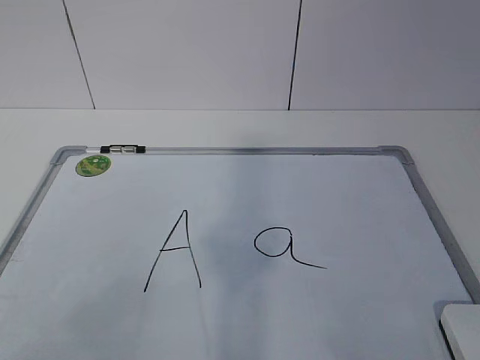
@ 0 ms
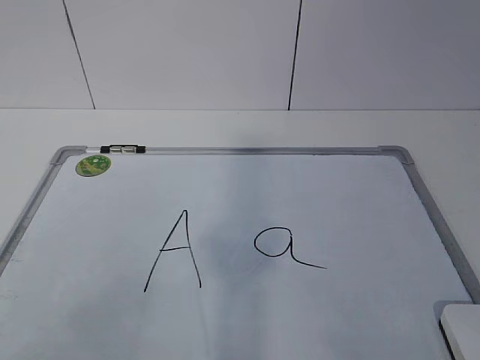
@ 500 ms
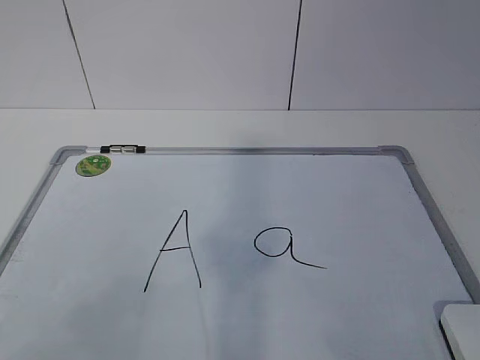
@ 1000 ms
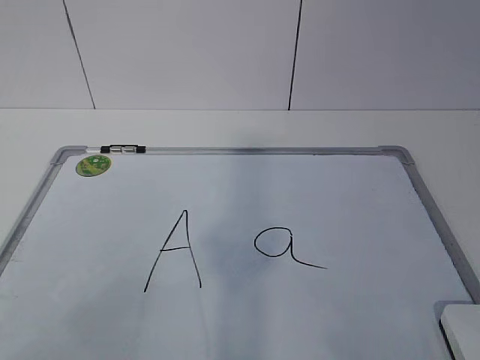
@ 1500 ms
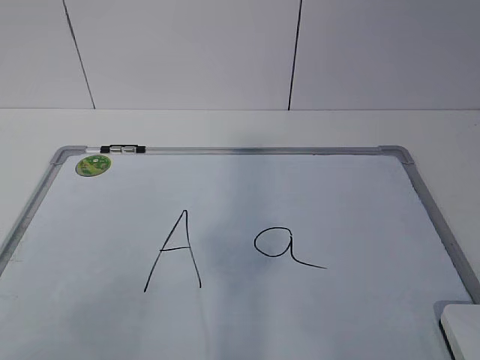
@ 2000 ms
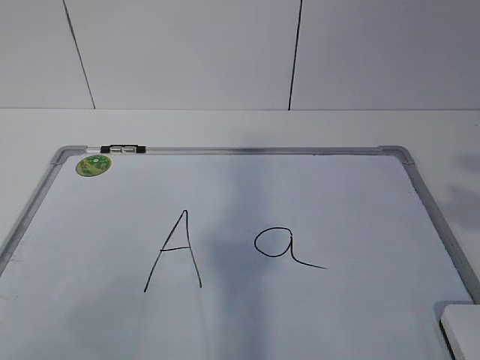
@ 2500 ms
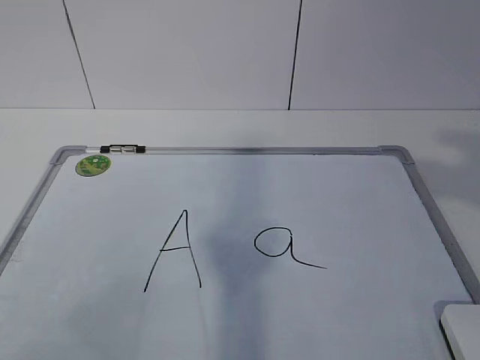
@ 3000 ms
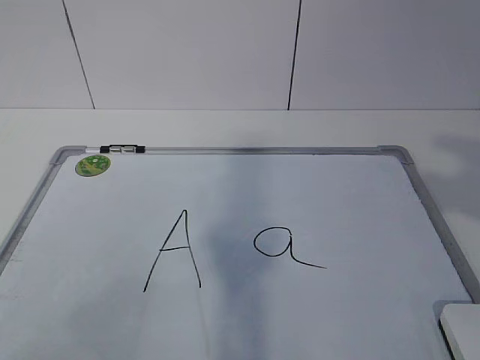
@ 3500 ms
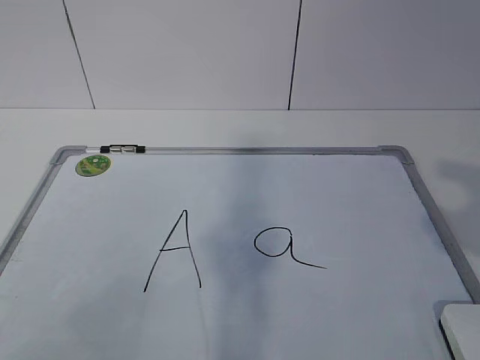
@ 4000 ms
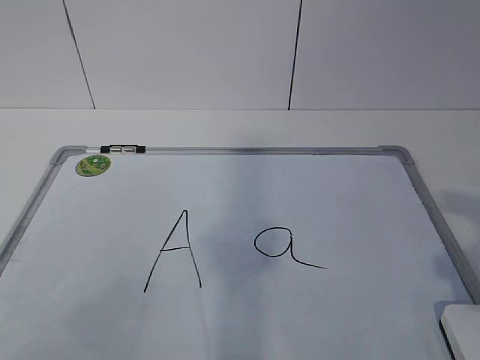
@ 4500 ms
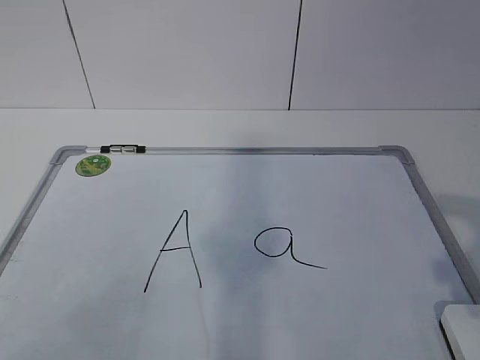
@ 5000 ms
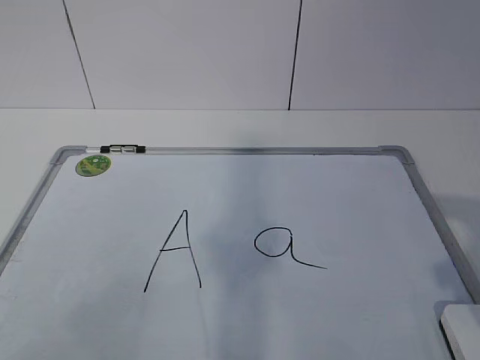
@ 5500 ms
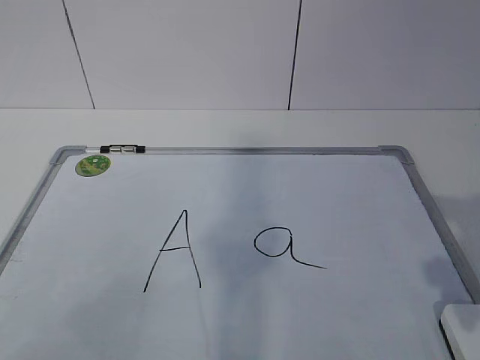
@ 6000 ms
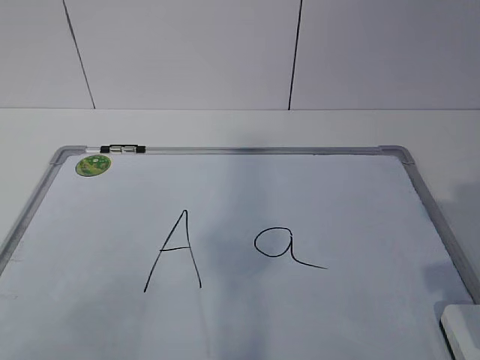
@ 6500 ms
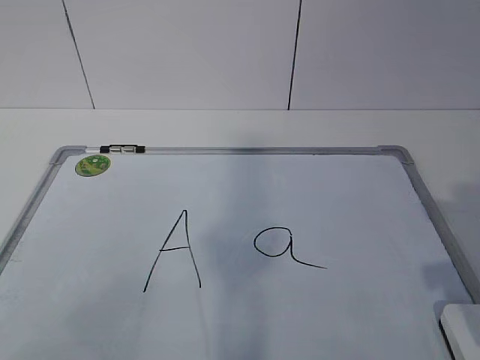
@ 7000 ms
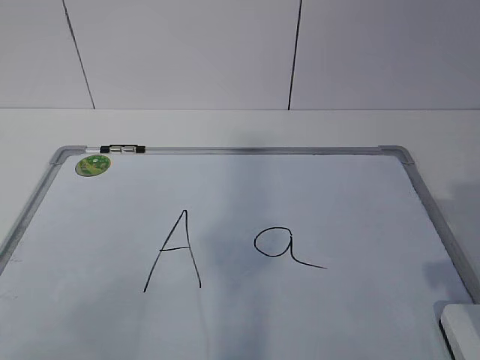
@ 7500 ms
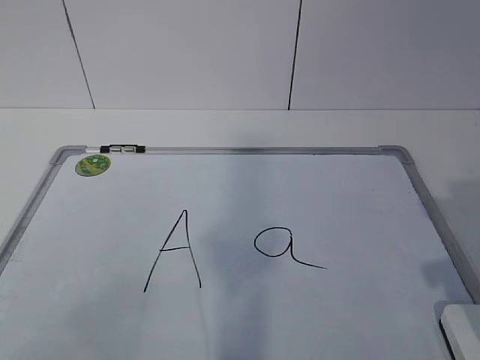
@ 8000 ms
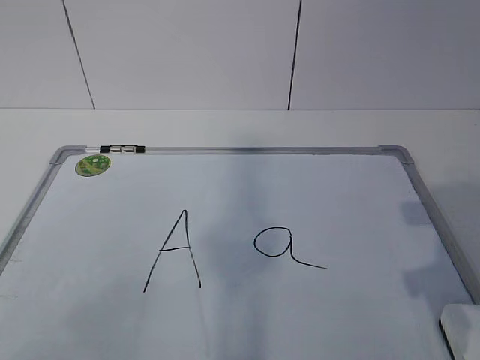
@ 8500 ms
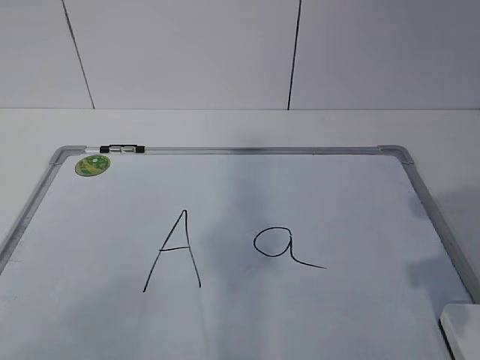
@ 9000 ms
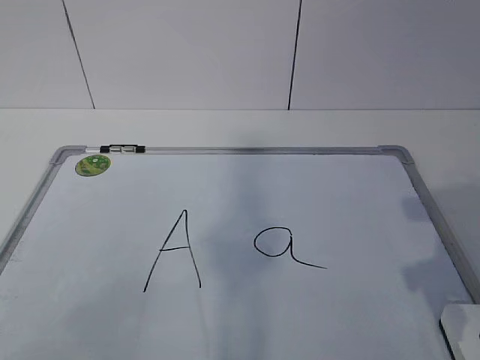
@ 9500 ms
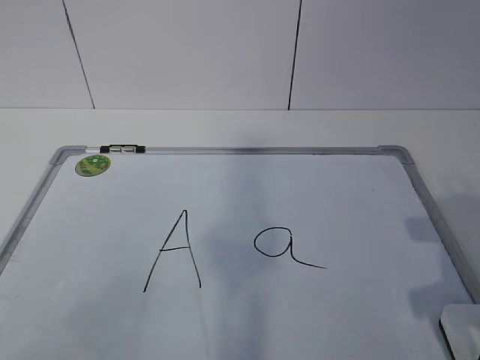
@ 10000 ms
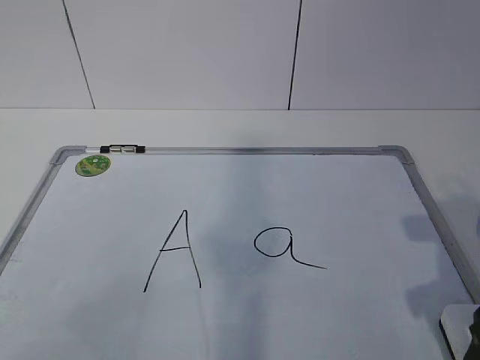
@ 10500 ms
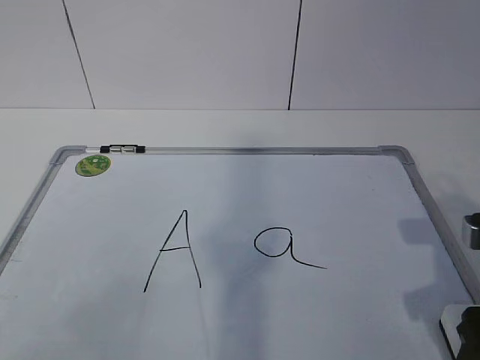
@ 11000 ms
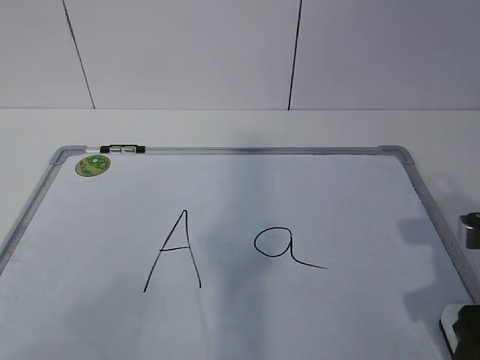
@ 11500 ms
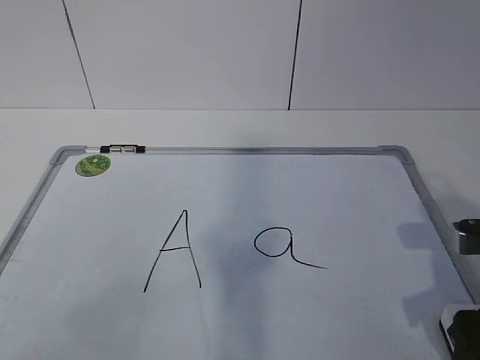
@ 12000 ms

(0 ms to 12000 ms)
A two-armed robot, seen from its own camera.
Task of the whole recording: pick up the eraser on the blackboard and erase the letter "a".
8000 ms - 10000 ms: The grippers make only small movements.
10000 ms - 12000 ms: The grippers make only small movements.

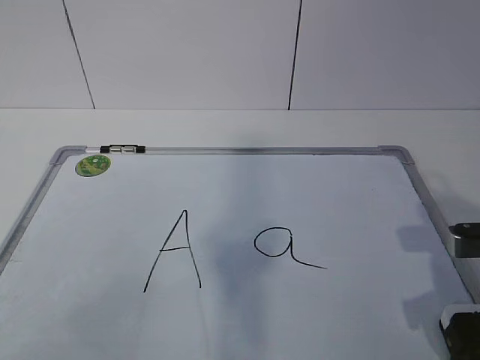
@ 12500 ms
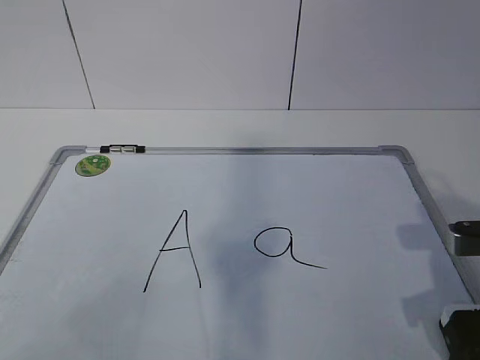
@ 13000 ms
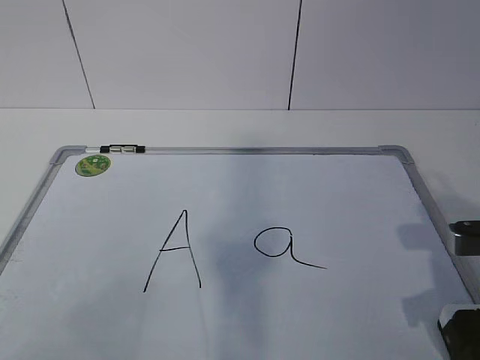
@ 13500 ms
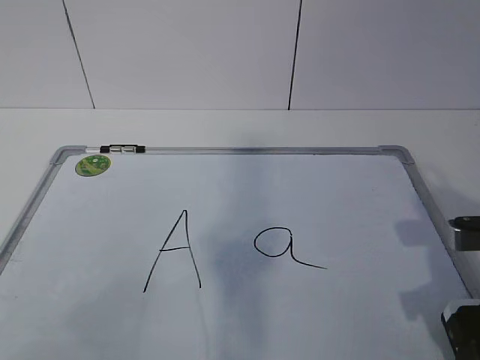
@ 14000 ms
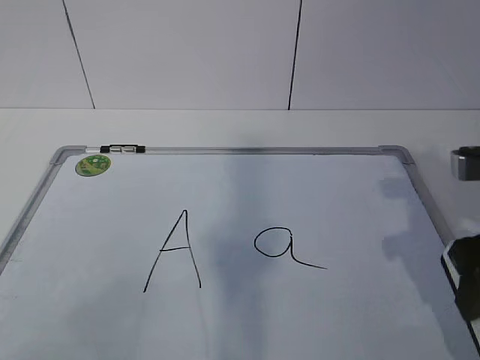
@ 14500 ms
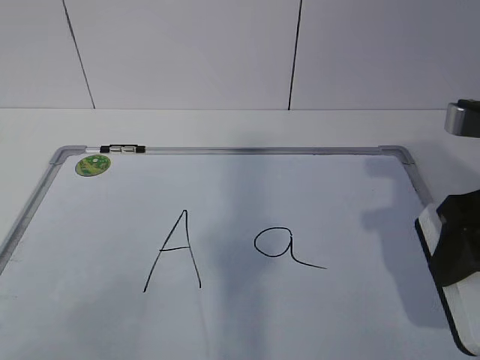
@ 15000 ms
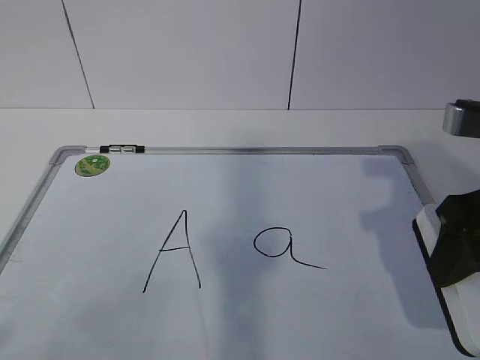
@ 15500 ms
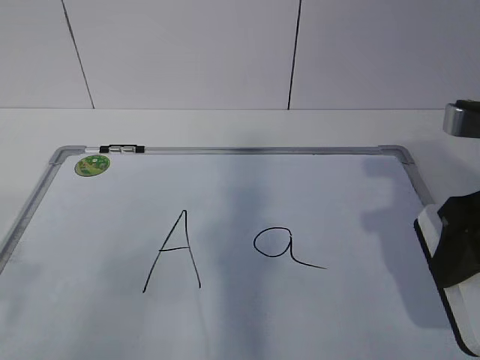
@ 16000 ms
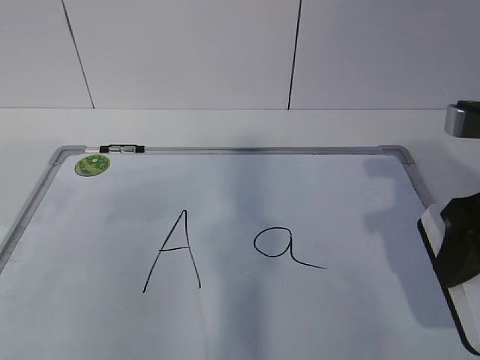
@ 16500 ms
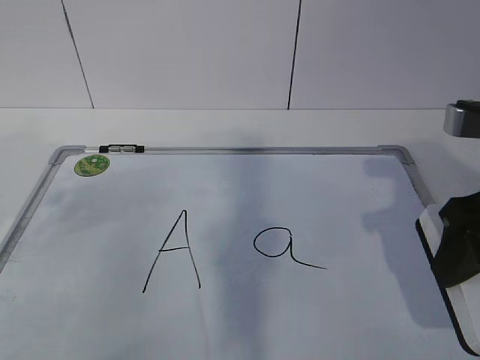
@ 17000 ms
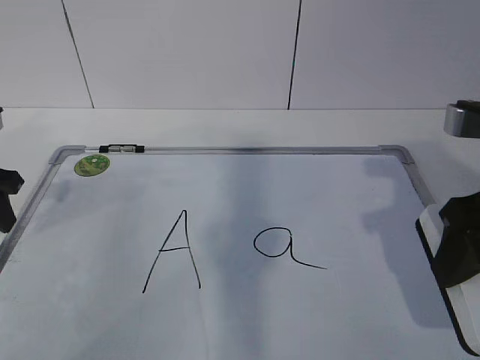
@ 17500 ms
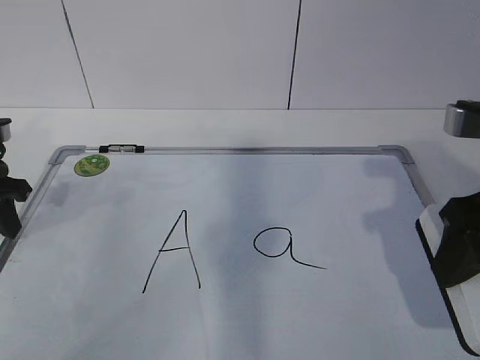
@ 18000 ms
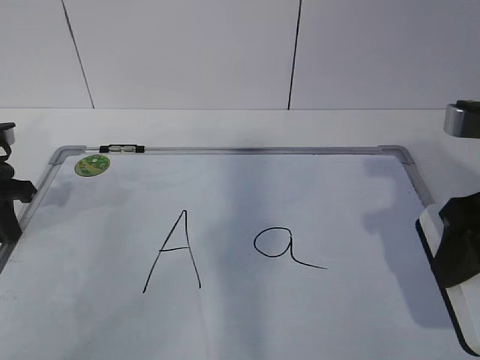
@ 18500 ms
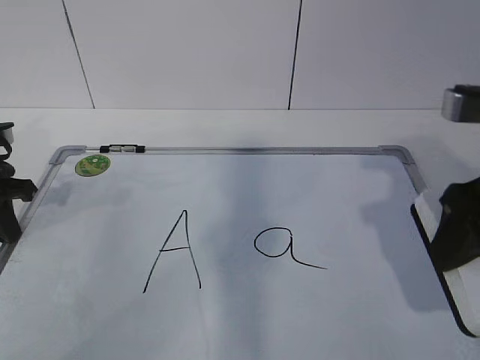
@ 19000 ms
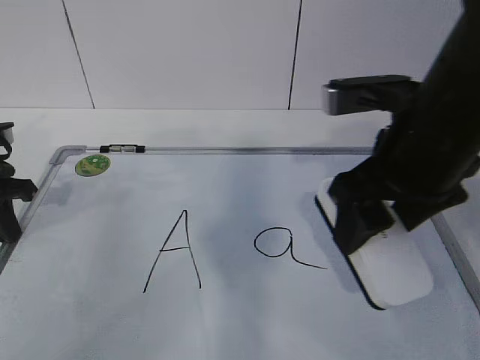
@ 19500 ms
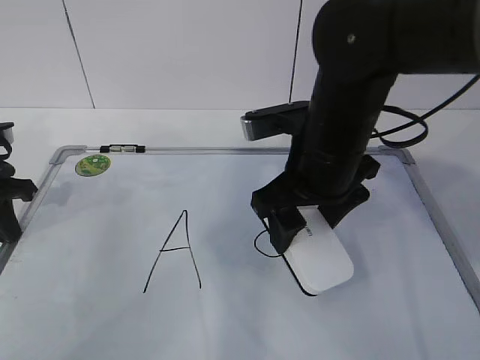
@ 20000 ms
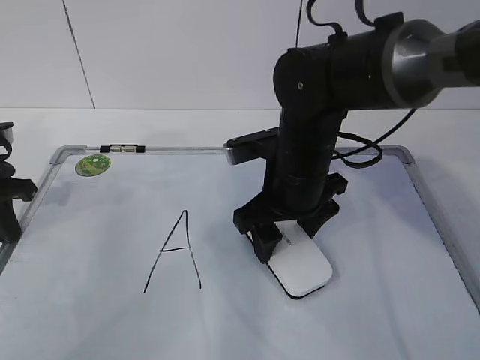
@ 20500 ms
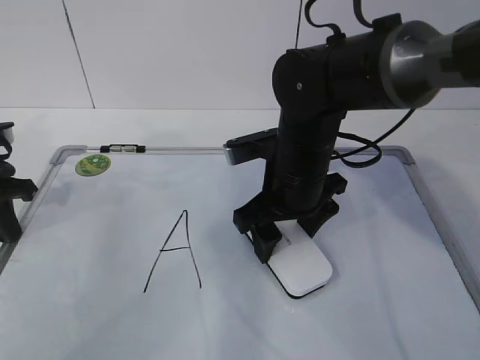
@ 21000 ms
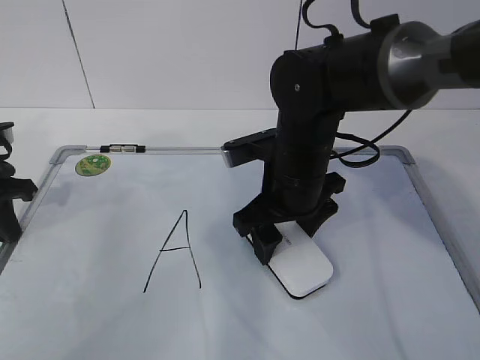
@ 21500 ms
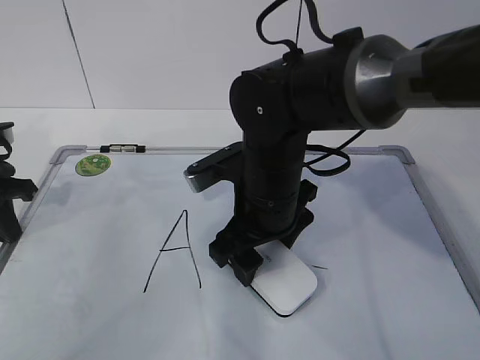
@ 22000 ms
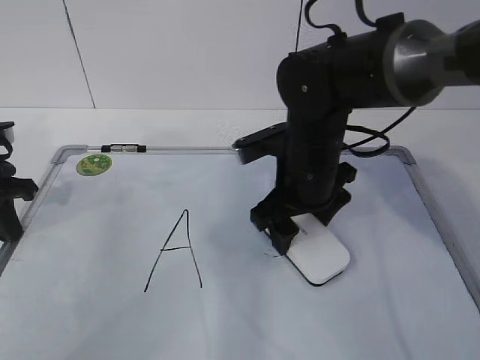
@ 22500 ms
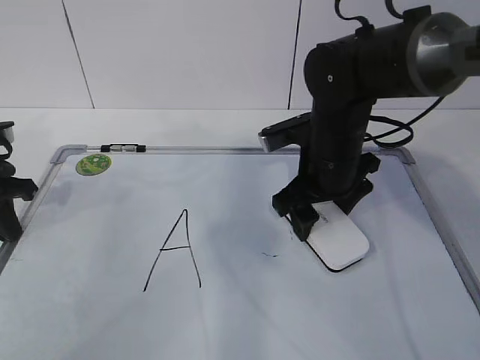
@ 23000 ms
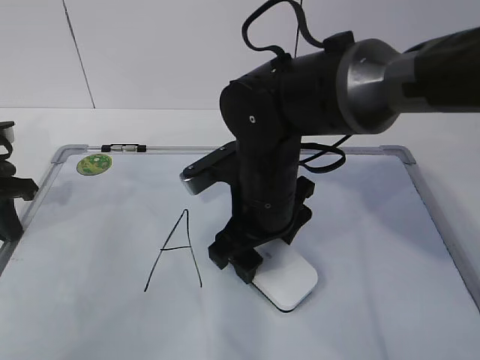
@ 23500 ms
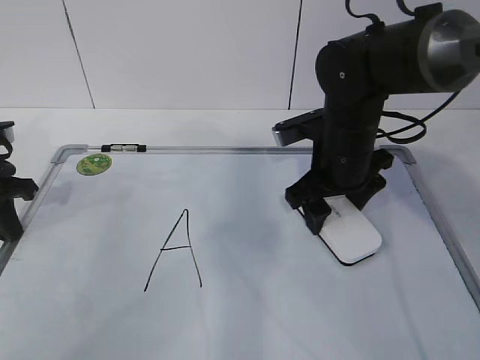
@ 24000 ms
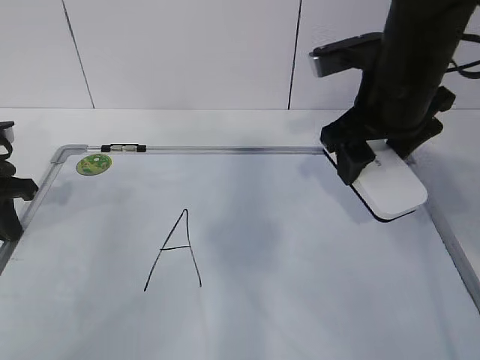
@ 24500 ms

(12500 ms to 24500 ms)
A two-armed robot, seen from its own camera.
Task of the whole recording: pick up the eraser on the blackboard and erase the letter "a".
Step, 16000 ms - 19500 ms: Erase the letter a with your right hand.
Step, 20500 ms - 22000 ms: Put down the eraser with your right hand.
12500 ms - 14500 ms: The right gripper shifts some 5 cm upward.
16500 ms - 18500 ms: The left gripper goes some 20 cm downward and forward, and closes up.
18500 ms - 20500 ms: The right gripper goes some 20 cm to the left, forward and downward.
20500 ms - 22500 ms: The grippers stay close to where they were, moving slightly.
22500 ms - 24500 ms: The right gripper travels upward and to the right by about 10 cm.

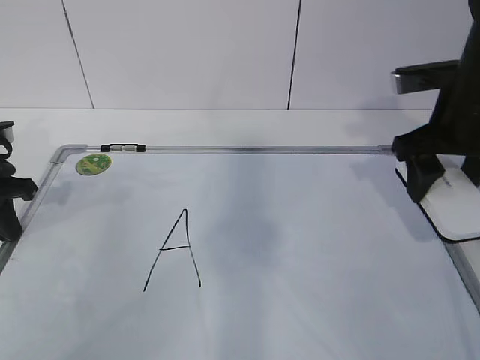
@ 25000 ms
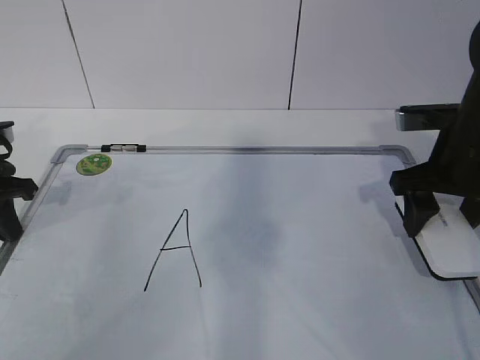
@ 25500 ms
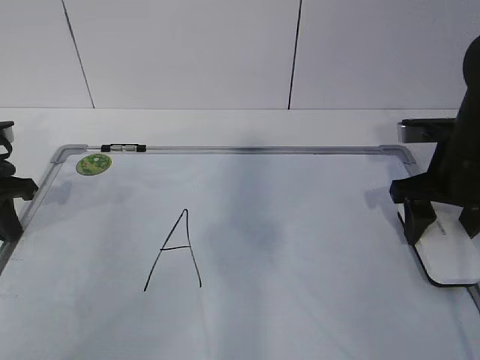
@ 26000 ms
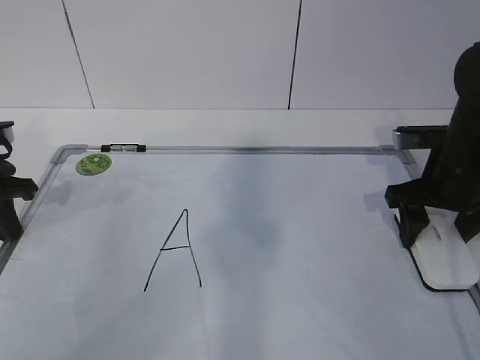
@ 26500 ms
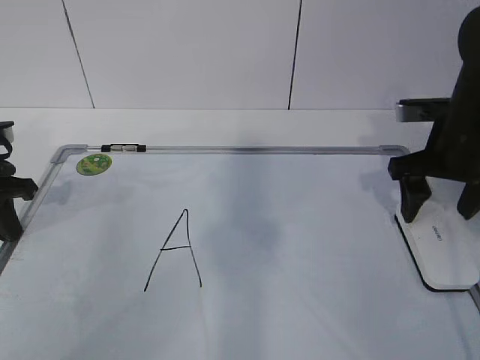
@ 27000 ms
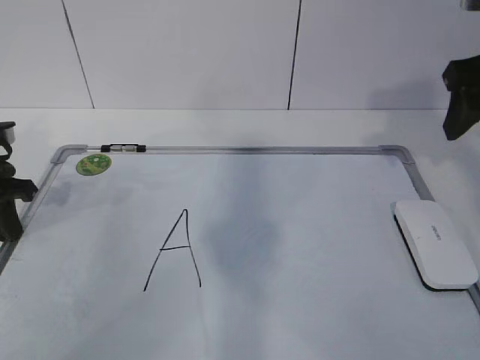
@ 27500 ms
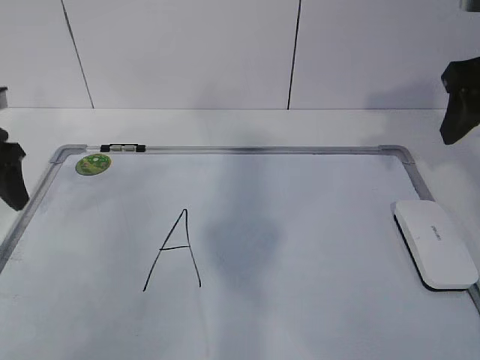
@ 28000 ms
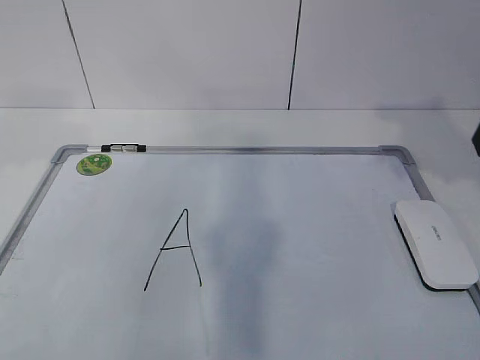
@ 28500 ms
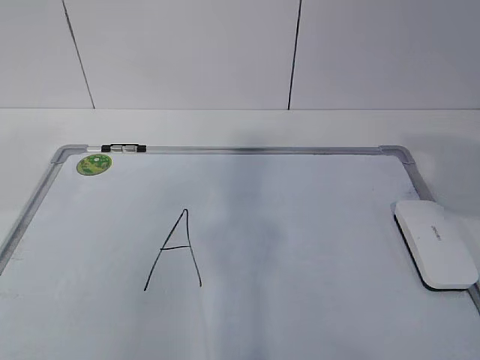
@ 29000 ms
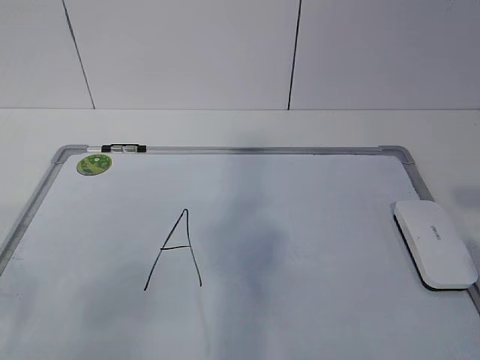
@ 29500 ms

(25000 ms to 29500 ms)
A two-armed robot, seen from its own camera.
Task of the whole recording: pick up the eraser on the blackboard and erase the letter "a".
27000 ms - 29500 ms: Both grippers travel together backward and upward, approximately 30 cm. The left gripper opens its fingers.
